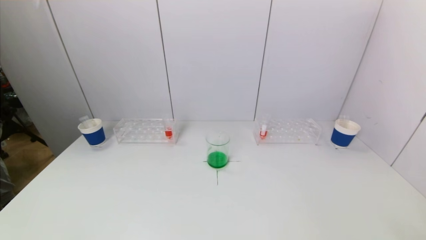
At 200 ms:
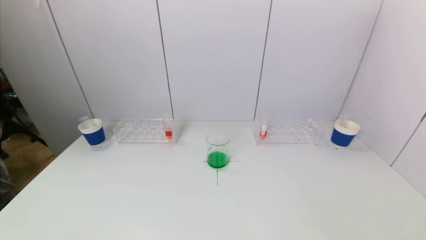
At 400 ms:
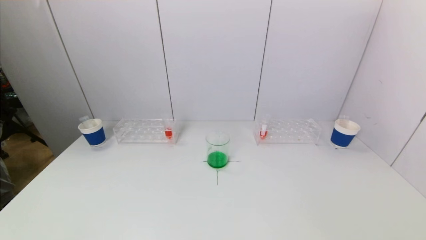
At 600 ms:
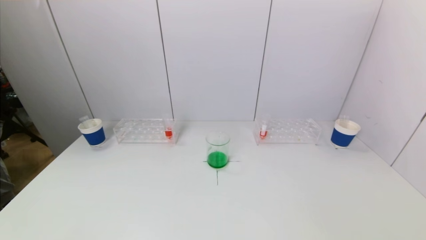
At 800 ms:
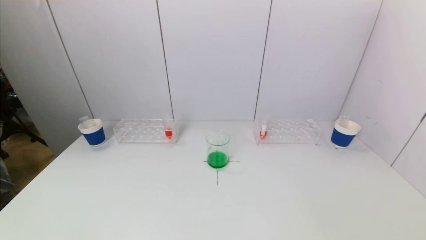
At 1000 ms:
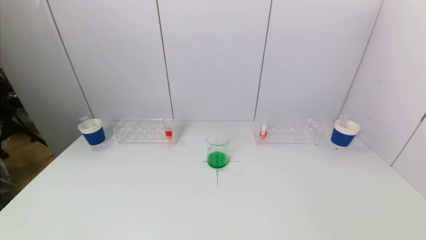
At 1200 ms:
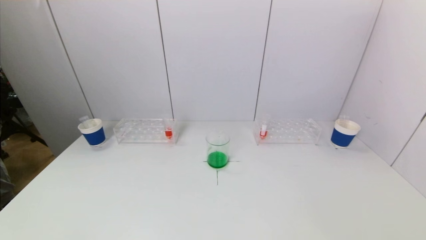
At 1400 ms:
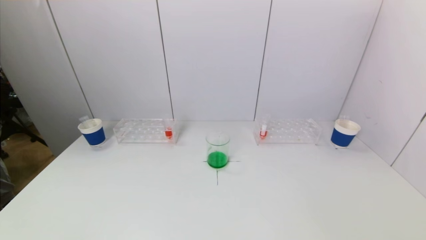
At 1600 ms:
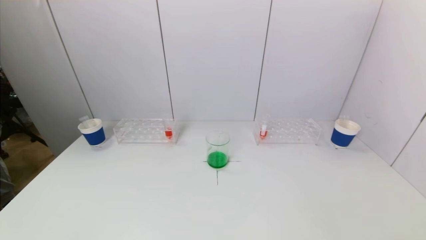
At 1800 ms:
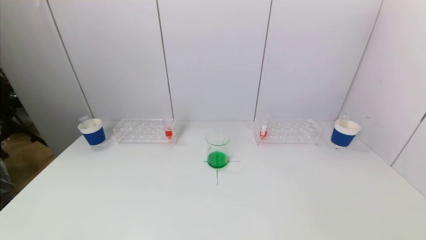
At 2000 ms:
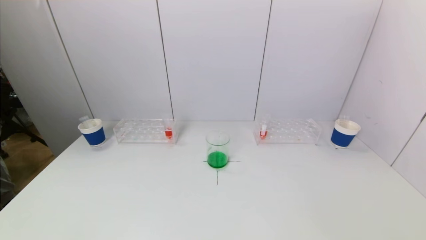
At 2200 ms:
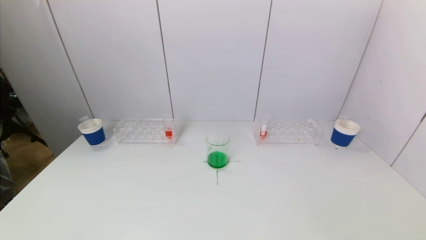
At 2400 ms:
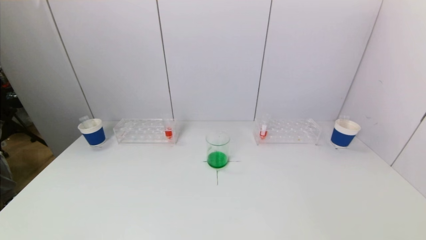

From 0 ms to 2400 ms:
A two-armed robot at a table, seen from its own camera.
Task of the whole recording: pick up a test tube with pigment on left test tube rack and a test tube with pigment on right test tube rack by grippers and pour them into the beaker.
From 1200 ms to 2400 ms: Neither gripper changes place.
